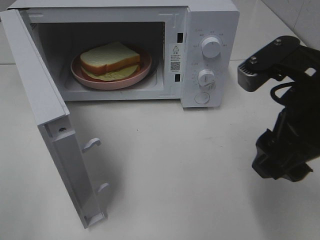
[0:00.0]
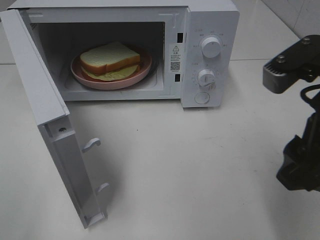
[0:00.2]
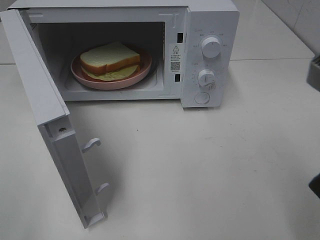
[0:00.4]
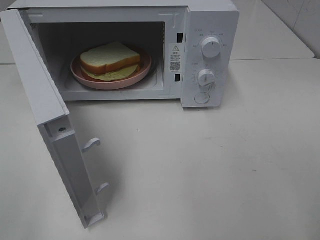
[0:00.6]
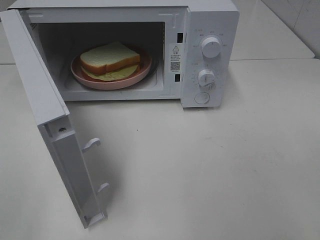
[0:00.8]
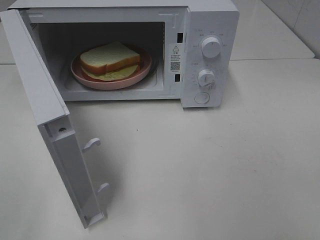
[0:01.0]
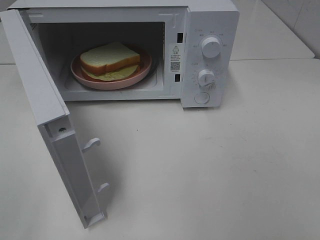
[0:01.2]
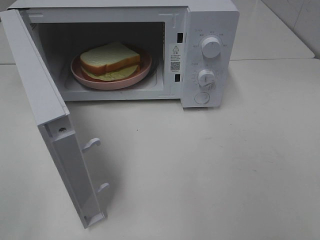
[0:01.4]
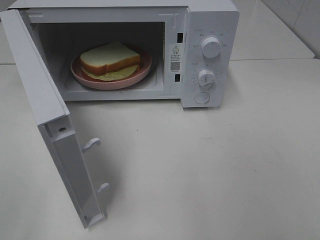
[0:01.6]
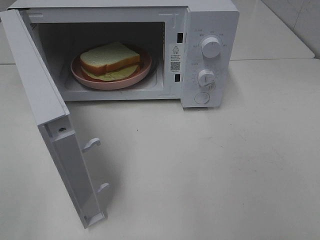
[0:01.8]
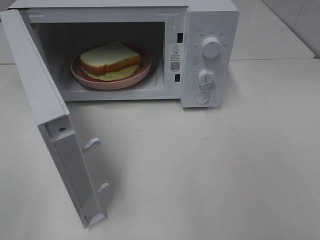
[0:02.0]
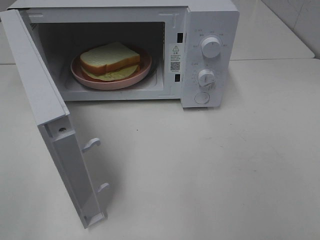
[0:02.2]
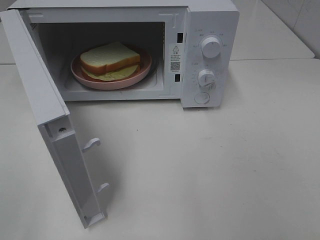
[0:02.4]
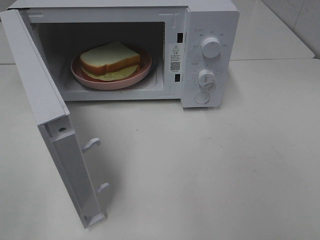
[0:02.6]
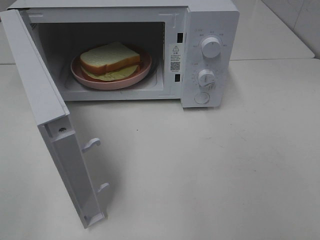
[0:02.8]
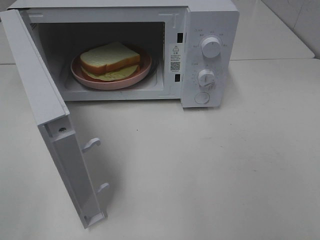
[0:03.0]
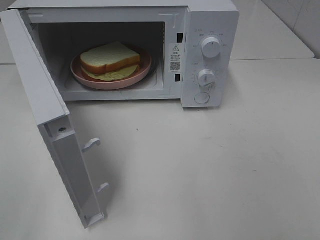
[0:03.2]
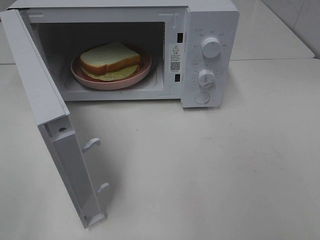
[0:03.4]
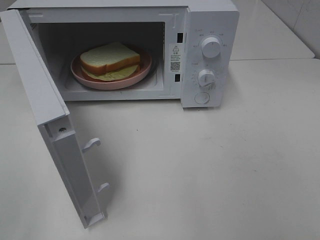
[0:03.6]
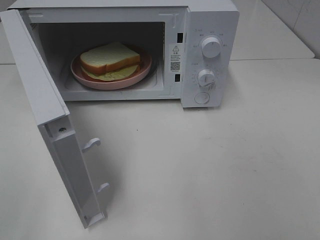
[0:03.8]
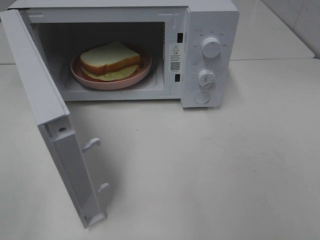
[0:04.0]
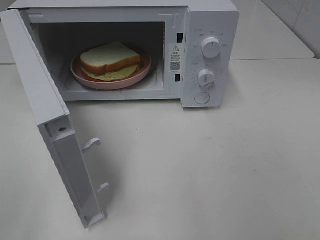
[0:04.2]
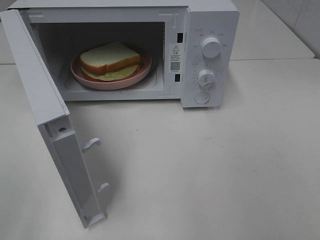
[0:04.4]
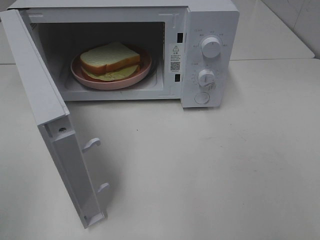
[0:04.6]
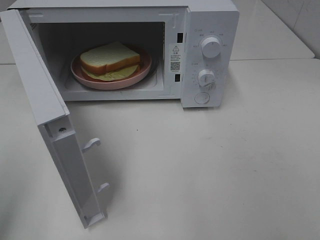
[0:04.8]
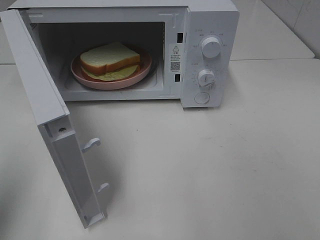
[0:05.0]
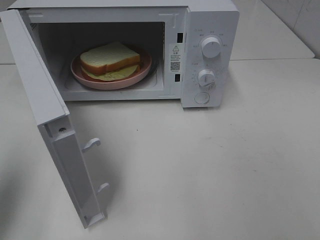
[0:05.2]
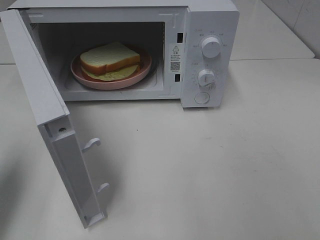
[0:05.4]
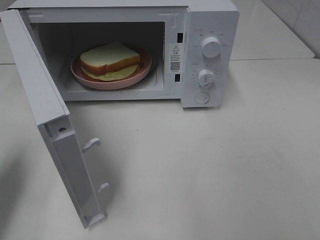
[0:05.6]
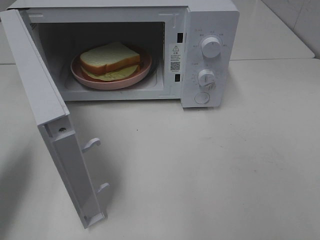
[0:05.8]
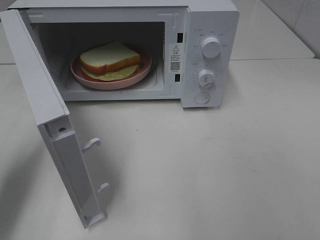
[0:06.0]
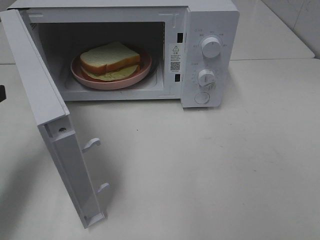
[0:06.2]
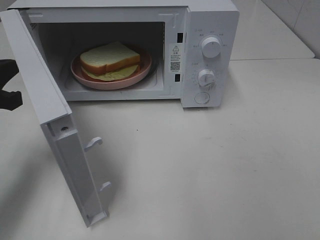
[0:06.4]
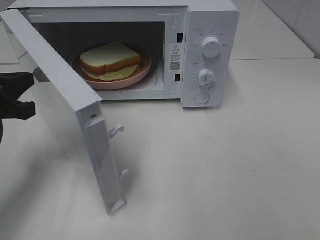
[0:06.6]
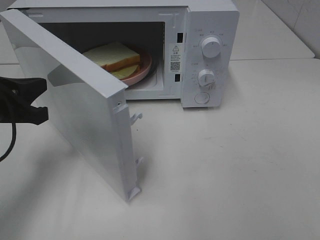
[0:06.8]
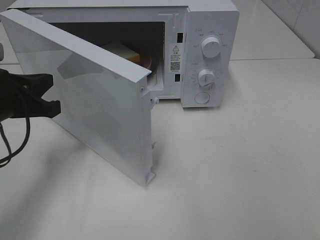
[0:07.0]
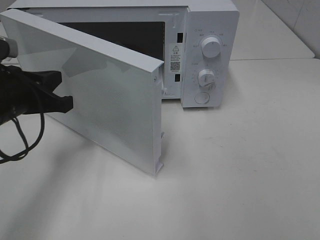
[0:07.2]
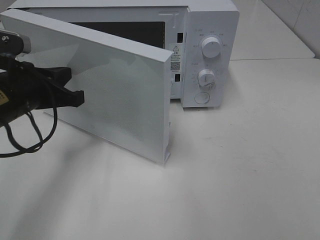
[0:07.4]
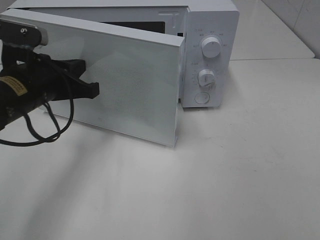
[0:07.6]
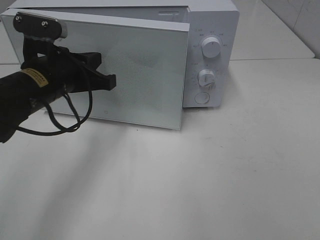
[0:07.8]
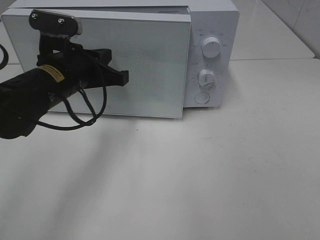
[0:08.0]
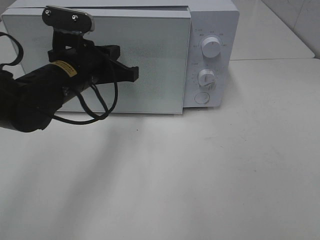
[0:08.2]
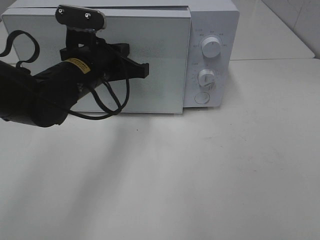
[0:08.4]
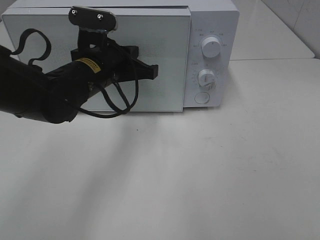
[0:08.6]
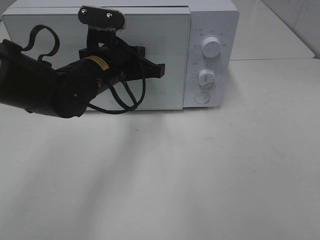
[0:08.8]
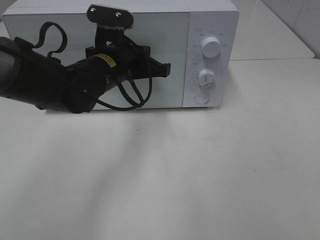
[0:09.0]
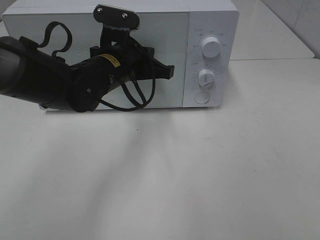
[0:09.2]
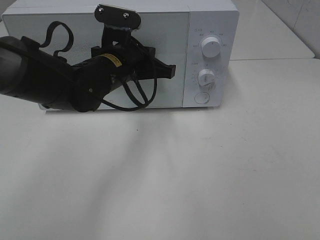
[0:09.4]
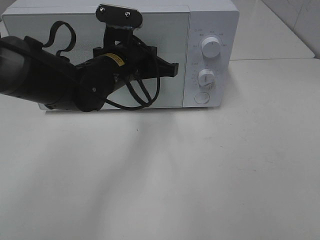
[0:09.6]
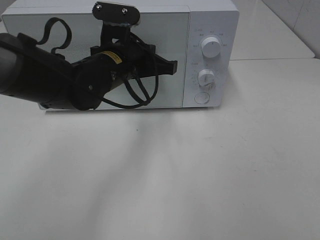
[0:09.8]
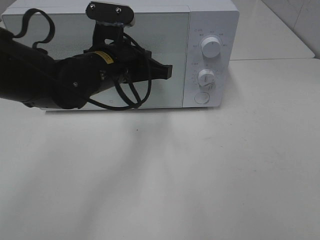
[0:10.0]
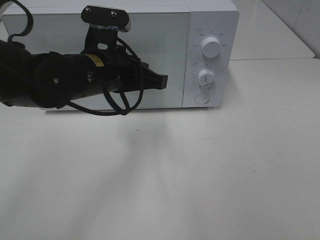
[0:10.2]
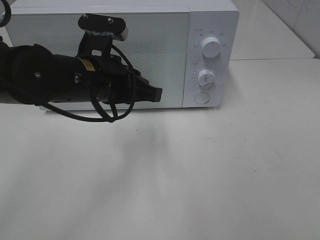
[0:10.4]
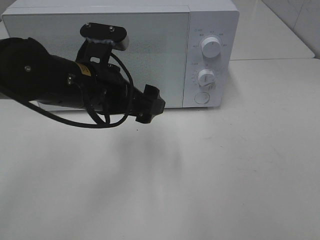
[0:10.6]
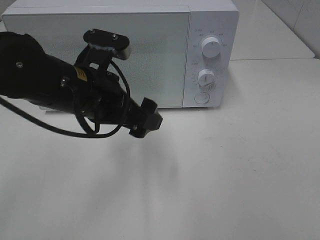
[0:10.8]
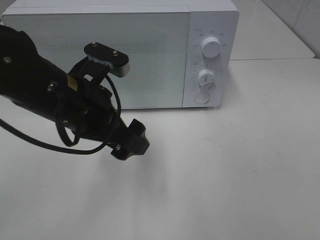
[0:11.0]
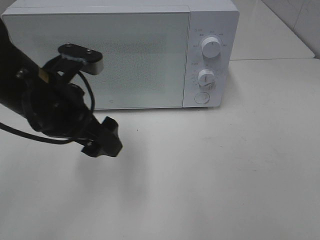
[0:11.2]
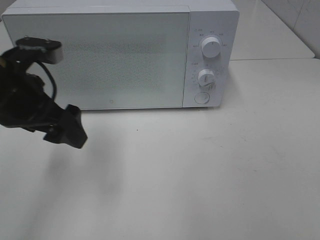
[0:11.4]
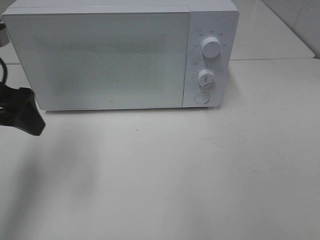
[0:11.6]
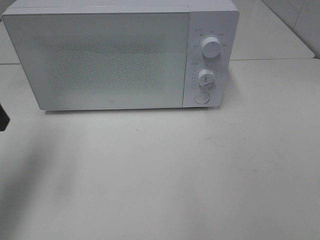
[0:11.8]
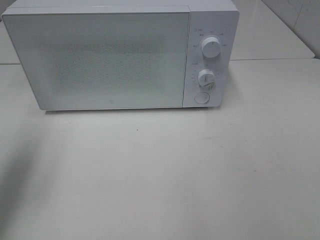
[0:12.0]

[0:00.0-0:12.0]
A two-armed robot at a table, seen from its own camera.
Task of the whole recording: Heat Sandwich.
Step, 0:00.0 to 0:10.2: Left hand: close the microwave door.
0:00.0 to 0:01.6: The right gripper shifts some 20 cm backward and to the right.
0:04.4 to 0:06.0: The left gripper moves forward, some 20 cm, and closes up.
0:06.0 to 0:07.6: The left gripper moves to the right and forward, approximately 15 cm.
0:07.6 to 0:09.0: The left gripper moves to the right and forward, some 10 cm.
0:09.0 to 0:10.4: The left gripper shifts some 5 cm backward, and opens its fingers.
0:10.4 to 0:12.0: The left gripper moves to the left, approximately 25 cm, and opens.

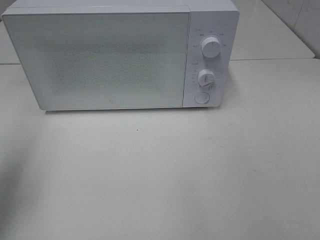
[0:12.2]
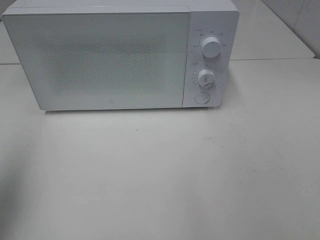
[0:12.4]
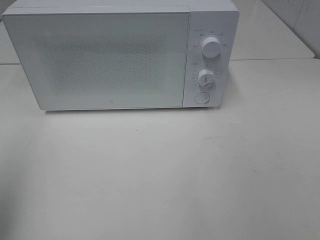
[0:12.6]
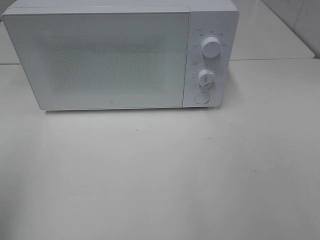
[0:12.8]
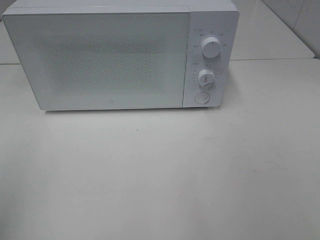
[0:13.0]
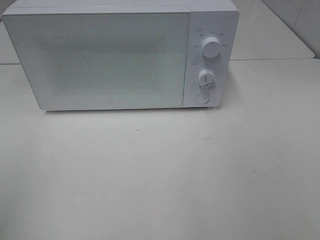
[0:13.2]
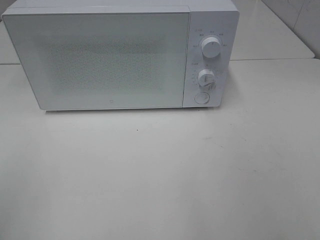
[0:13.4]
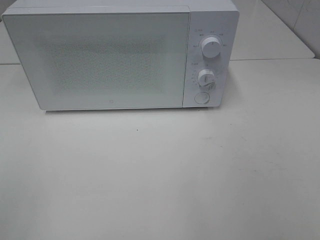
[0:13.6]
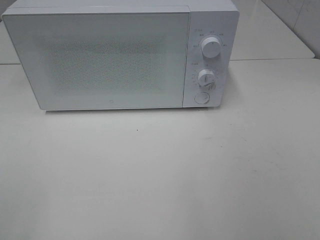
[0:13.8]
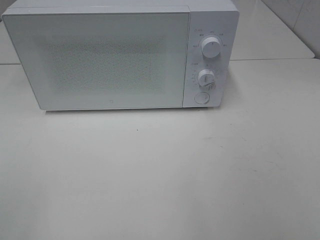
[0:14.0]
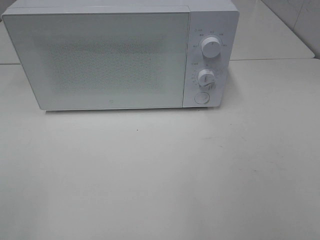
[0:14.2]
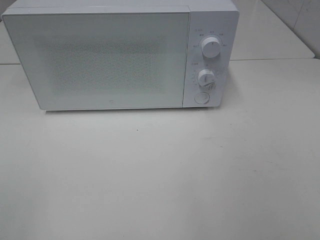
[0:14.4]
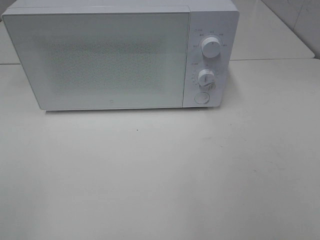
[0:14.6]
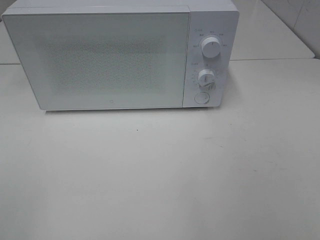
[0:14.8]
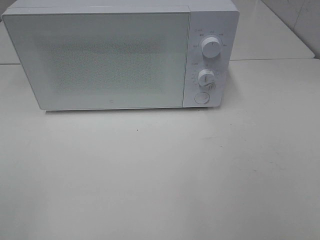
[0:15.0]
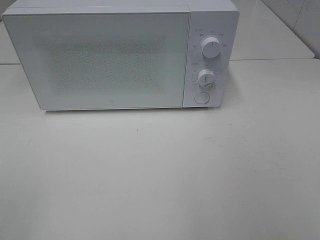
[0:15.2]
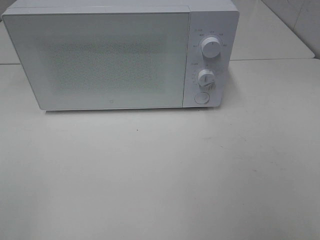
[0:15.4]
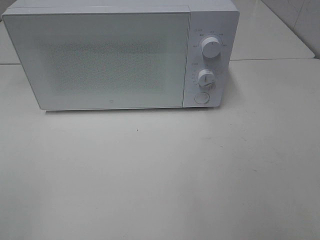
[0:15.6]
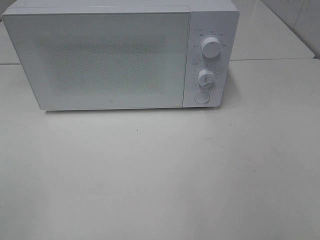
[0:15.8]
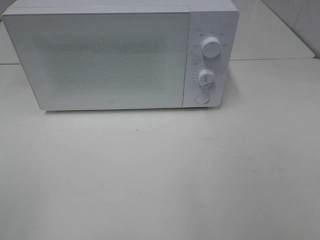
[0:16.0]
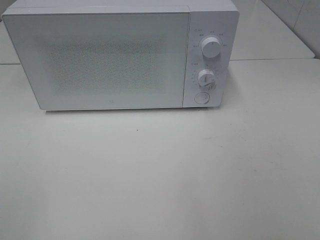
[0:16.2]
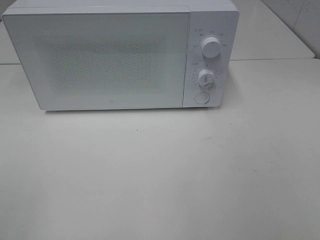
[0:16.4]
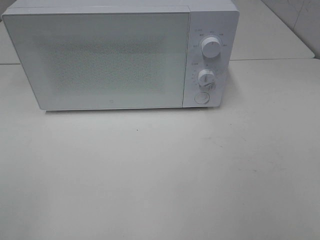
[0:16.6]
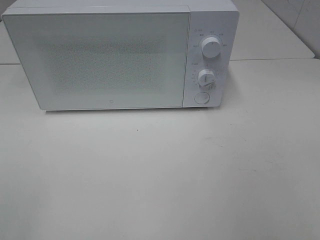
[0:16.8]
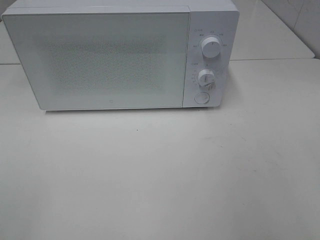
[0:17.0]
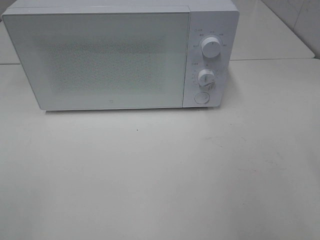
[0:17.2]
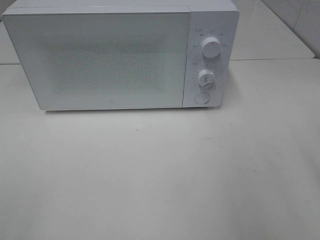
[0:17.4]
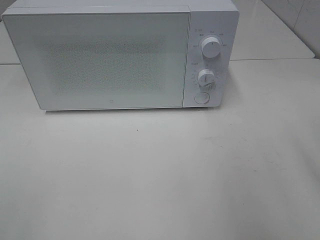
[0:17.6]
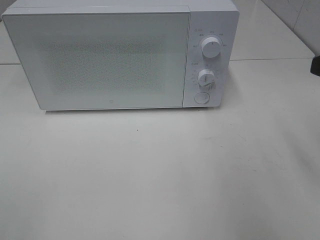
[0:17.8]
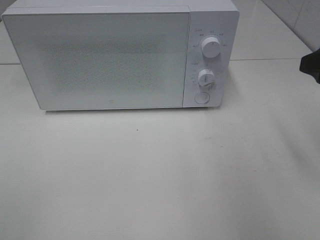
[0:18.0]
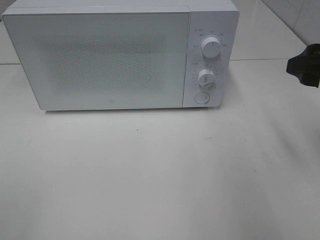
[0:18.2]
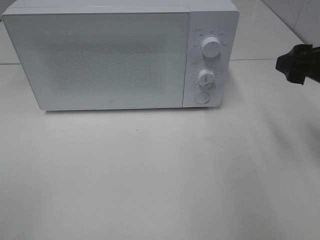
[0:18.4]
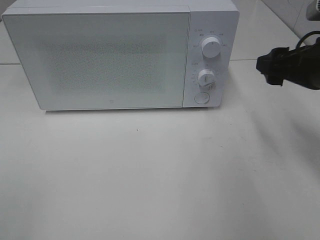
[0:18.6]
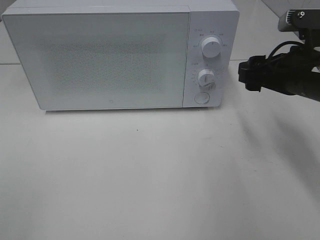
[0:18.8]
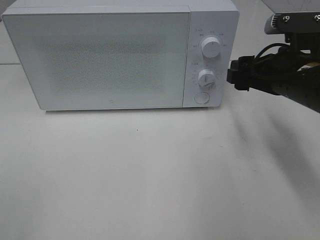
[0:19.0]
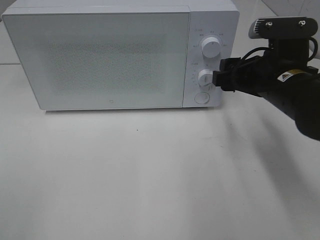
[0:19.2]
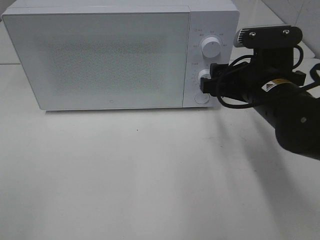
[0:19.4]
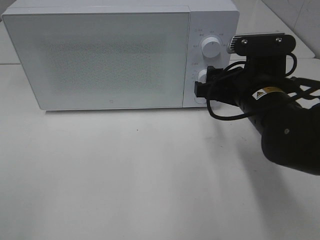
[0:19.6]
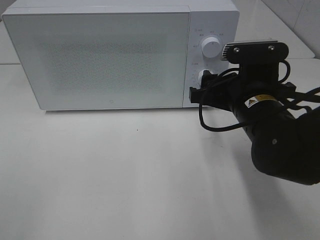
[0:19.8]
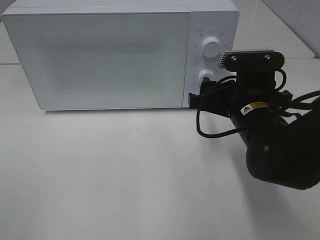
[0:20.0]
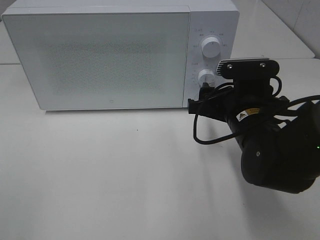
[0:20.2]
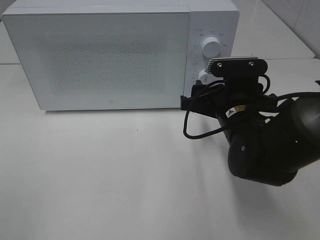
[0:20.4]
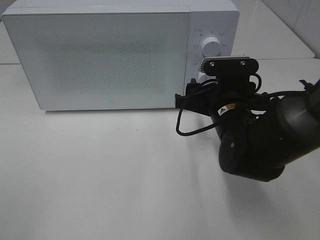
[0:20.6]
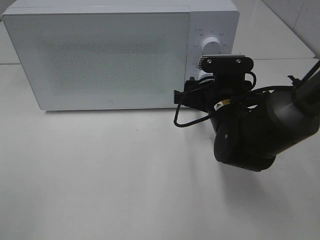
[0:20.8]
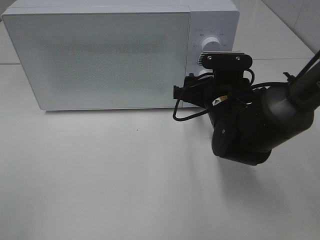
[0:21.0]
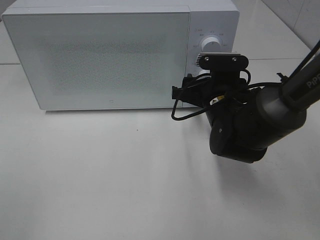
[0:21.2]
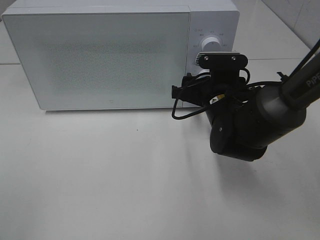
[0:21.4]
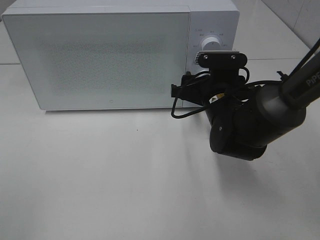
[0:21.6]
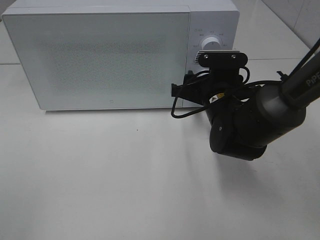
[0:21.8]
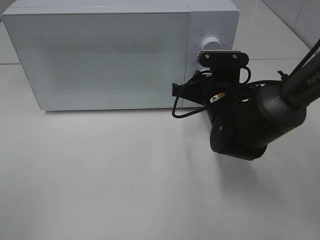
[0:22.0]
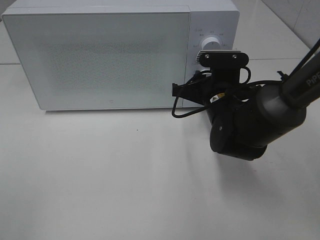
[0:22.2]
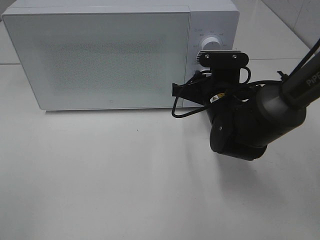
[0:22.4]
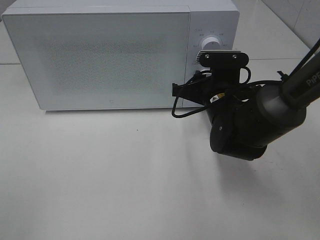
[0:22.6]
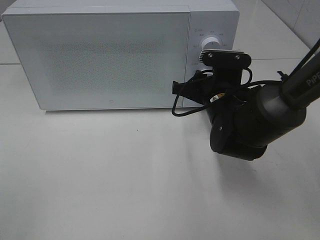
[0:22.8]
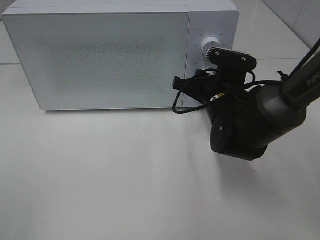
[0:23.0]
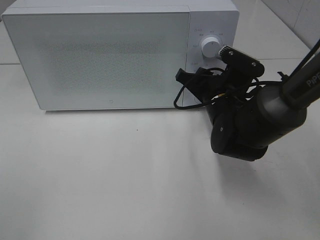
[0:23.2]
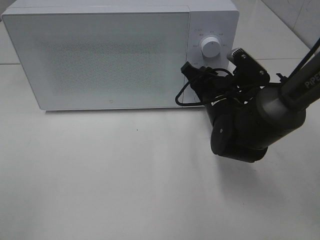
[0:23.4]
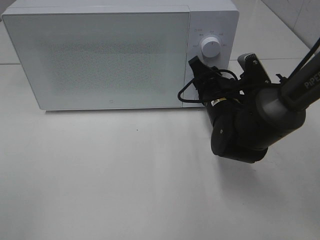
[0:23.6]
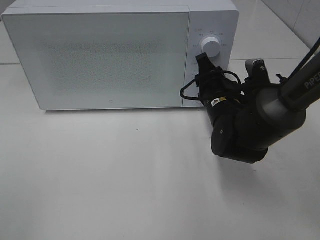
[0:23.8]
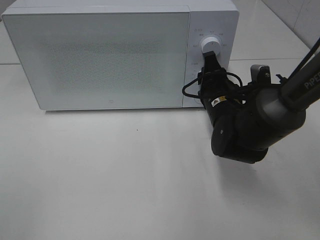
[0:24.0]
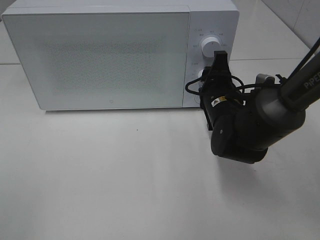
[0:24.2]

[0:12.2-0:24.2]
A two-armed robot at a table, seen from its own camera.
Task of the whole recording: Heat Sandwich.
0:12.2 to 0:13.8: The left gripper is displaced backward by approximately 20 cm.
0:13.8 to 0:15.2: The two grippers keep their place.
0:16.6 to 0:18.2: The right gripper shifts approximately 20 cm forward.
0:18.2 to 0:19.8: The right gripper goes approximately 15 cm to the left and downward.
0:19.8 to 0:21.2: The right gripper shifts some 10 cm forward and downward.
0:21.2 to 0:22.6: The right gripper closes its fingers.
